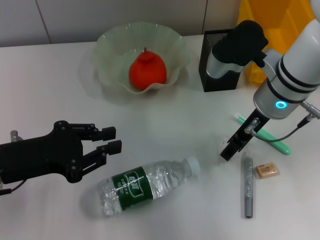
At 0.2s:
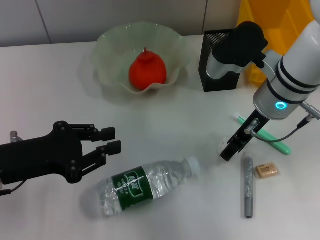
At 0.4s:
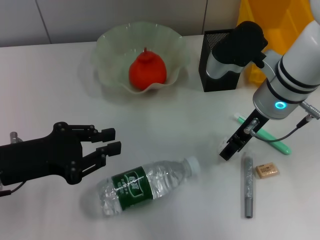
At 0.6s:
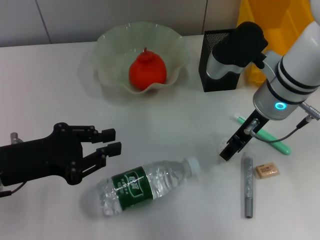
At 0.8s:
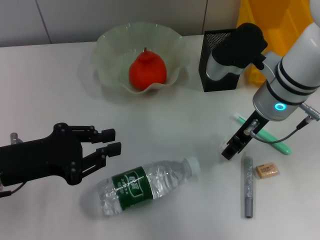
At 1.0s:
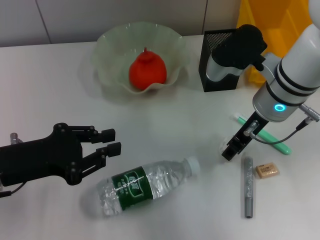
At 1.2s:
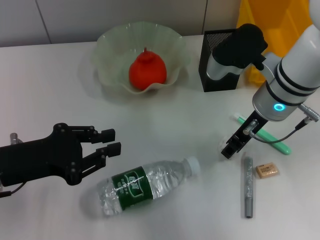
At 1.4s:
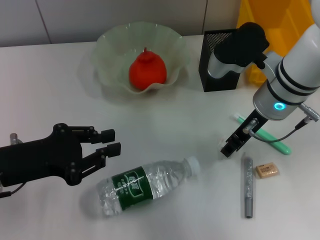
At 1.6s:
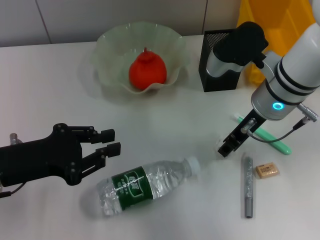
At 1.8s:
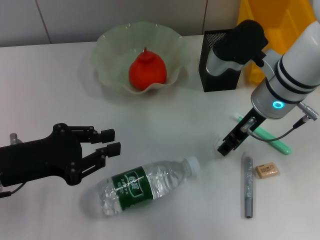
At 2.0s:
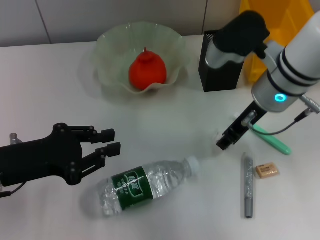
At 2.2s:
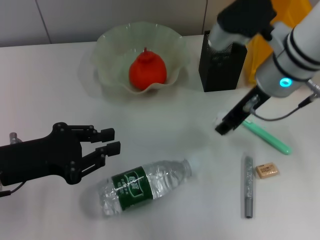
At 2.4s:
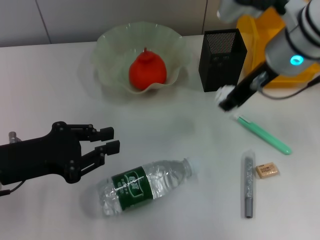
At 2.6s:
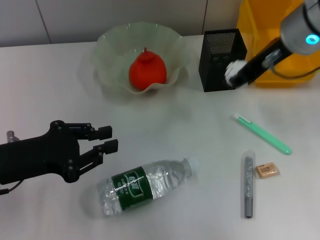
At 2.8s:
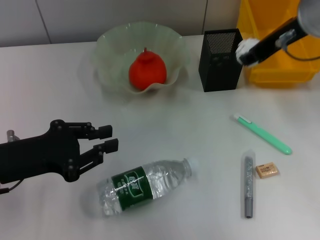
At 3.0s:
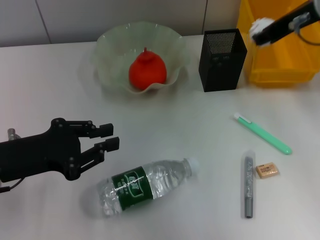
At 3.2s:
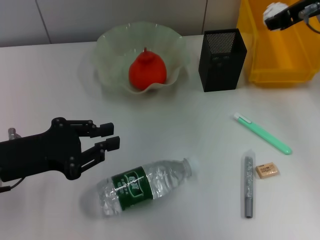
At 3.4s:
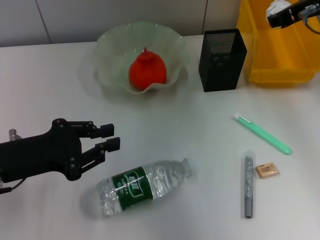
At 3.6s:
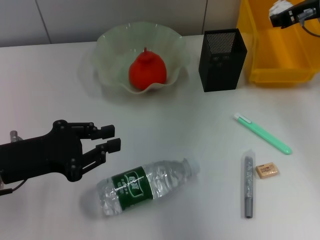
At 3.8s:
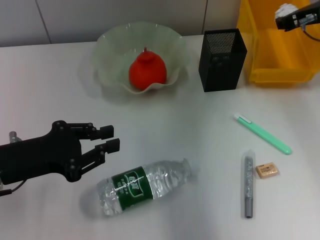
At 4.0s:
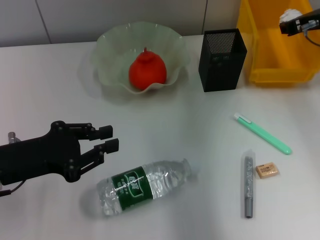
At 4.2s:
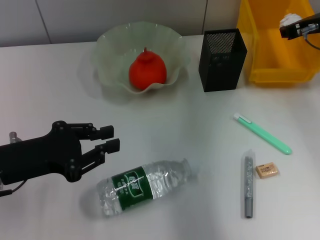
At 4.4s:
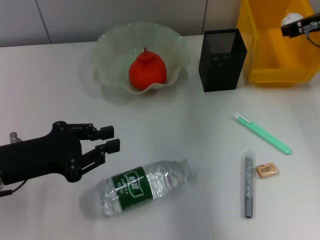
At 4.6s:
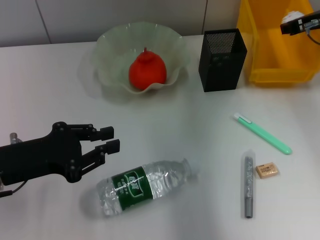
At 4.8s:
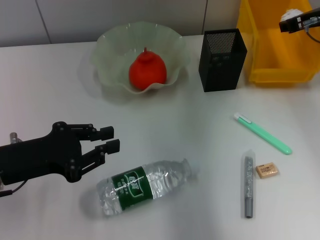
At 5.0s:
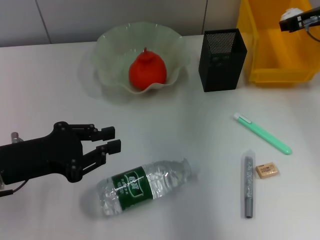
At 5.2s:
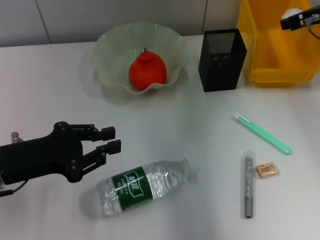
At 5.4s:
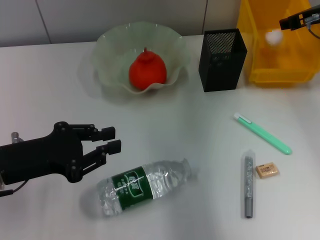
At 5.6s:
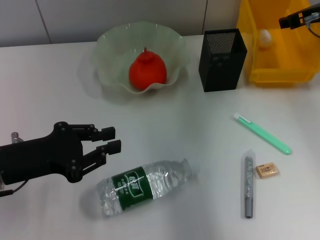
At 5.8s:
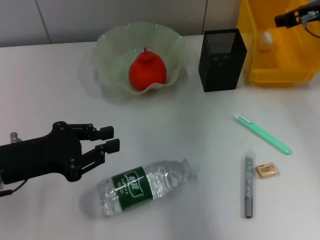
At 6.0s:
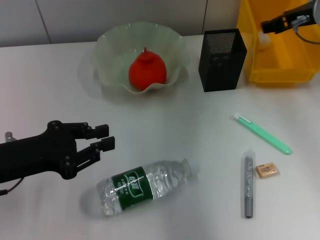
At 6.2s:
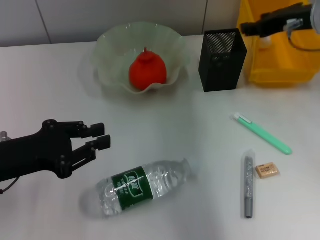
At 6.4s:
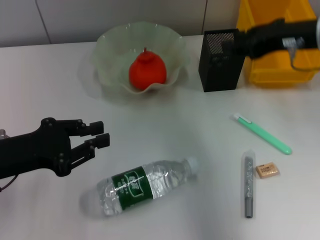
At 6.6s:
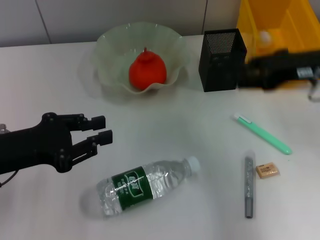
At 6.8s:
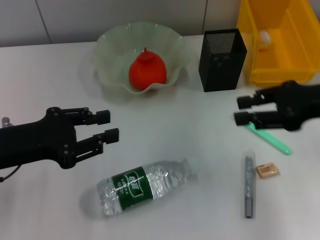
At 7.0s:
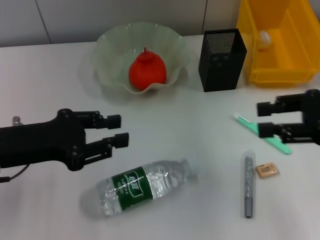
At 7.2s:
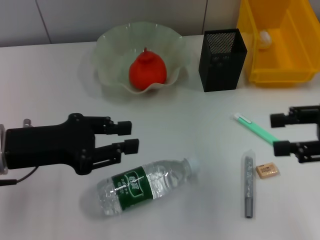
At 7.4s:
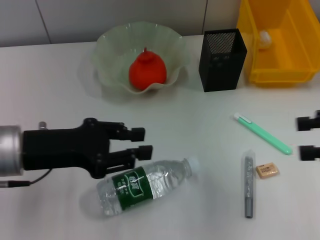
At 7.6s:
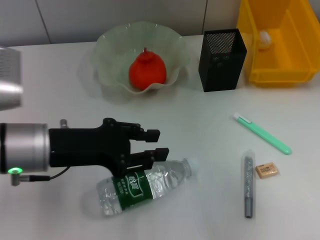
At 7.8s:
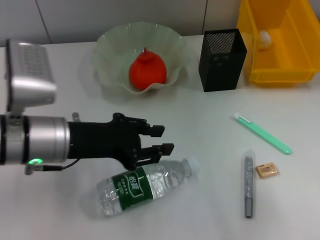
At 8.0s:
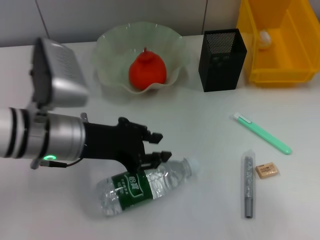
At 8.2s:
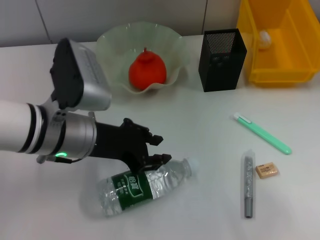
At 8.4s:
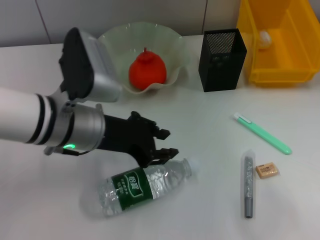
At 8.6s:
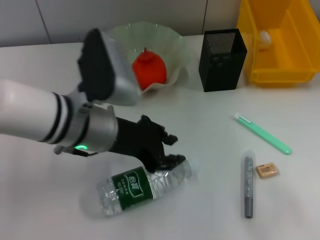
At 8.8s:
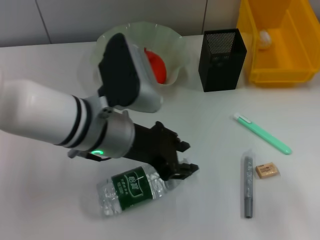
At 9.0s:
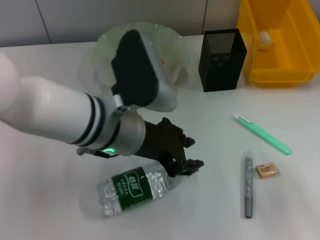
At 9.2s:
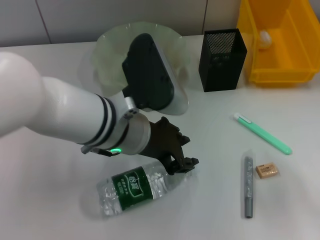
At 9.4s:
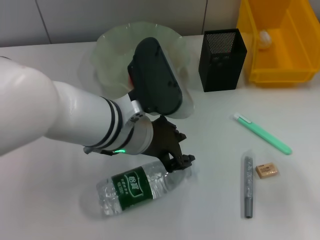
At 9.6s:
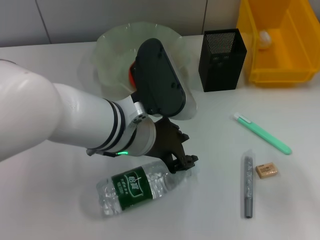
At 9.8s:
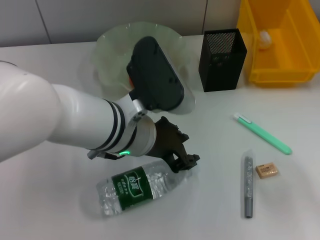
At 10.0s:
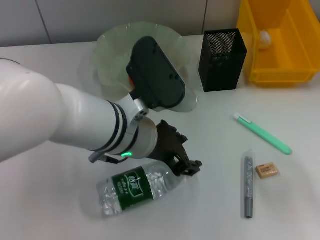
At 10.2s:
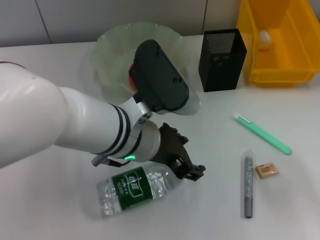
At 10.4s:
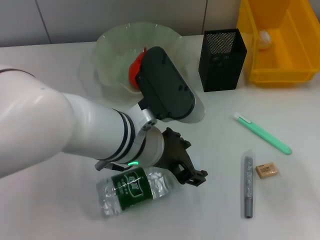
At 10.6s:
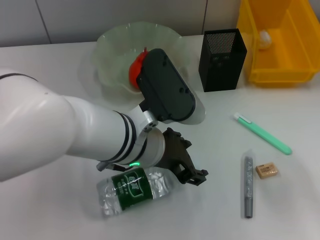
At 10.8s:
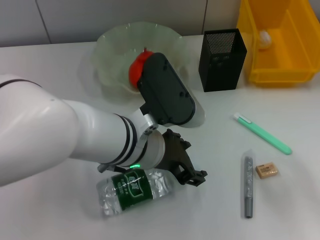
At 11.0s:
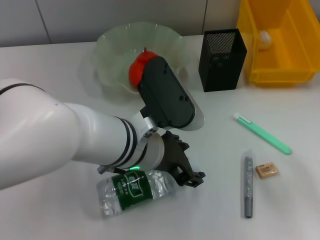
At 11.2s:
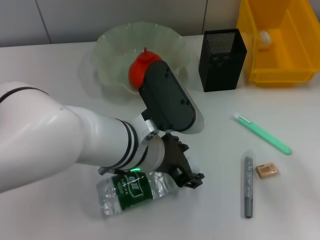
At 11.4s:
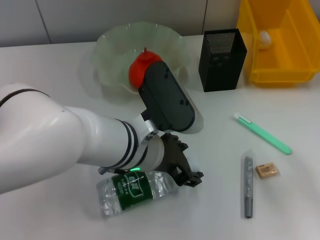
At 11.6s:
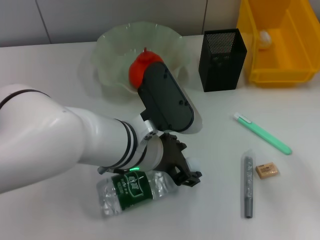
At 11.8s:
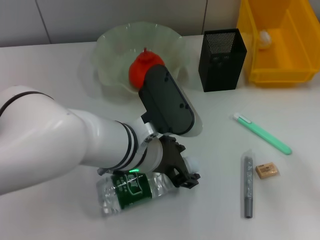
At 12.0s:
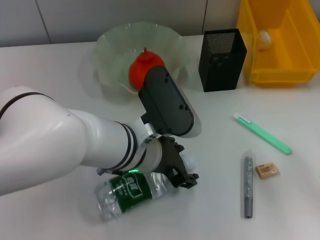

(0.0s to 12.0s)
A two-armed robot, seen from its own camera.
Step, 1.0s - 5.8s: Place the paper ball into the trash can with the right hand.
0.0s - 1.6s: Neither gripper changes place.
1.6s - 3.0s: The right gripper is displaced upward and to the right by some 15 cm.
3.0s - 4.4s: The right gripper travels downward, to the right and forward by approximately 10 cm.
4.4s - 6.0s: The grippers make only small movements.
6.0s - 7.6s: The left gripper moves to the right, about 5 cm, while the right gripper moves backward and to the right, roughly 25 cm.
7.6s - 9.0s: The left gripper heads to the right, covering approximately 10 cm.
9.0s - 12.0s: The grippers make only small movements.

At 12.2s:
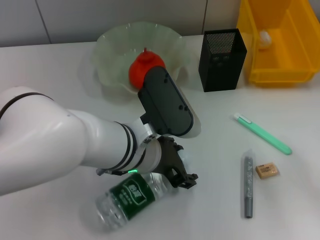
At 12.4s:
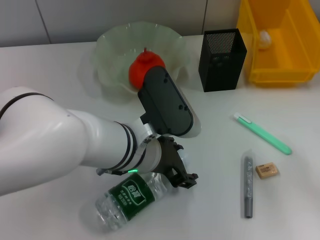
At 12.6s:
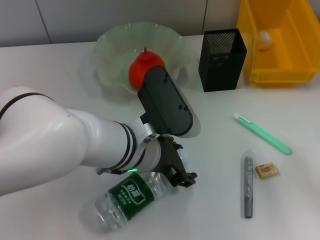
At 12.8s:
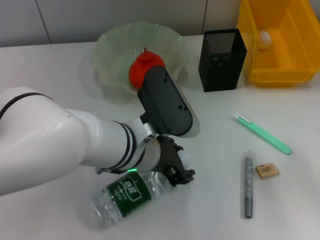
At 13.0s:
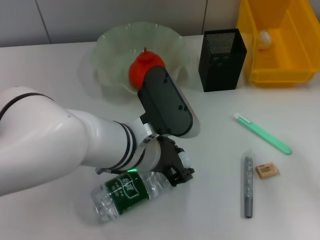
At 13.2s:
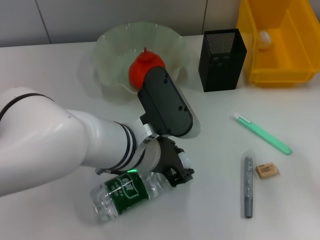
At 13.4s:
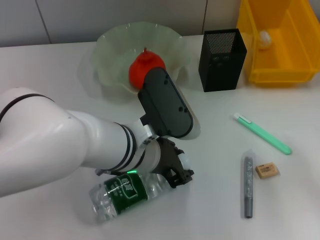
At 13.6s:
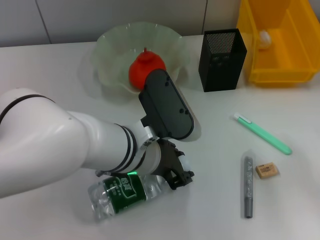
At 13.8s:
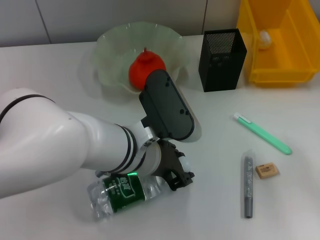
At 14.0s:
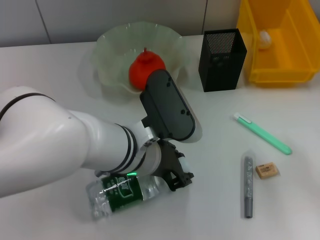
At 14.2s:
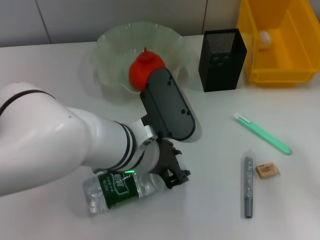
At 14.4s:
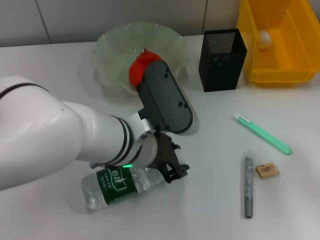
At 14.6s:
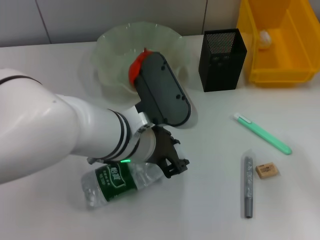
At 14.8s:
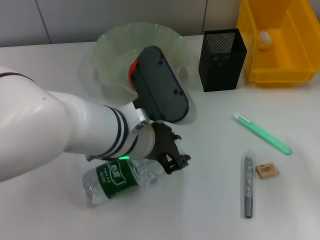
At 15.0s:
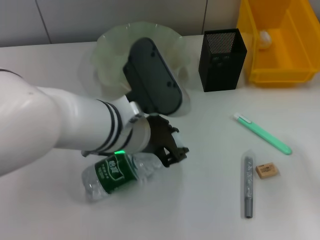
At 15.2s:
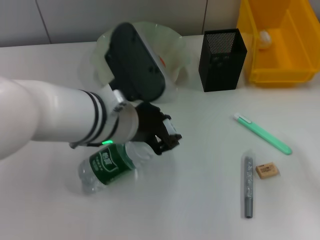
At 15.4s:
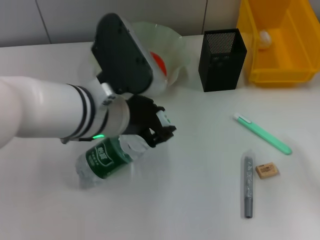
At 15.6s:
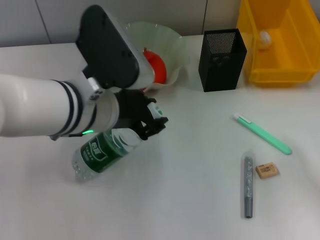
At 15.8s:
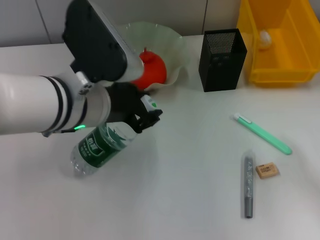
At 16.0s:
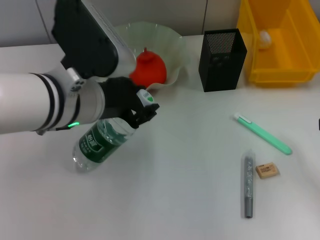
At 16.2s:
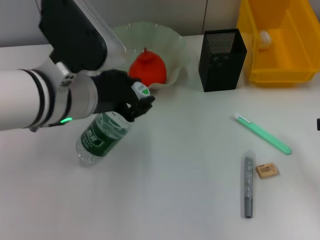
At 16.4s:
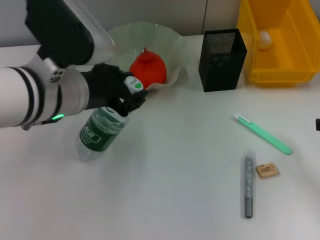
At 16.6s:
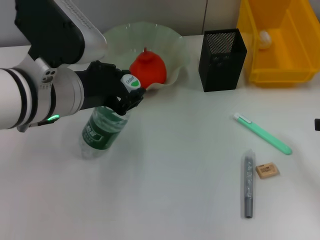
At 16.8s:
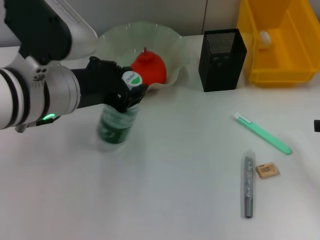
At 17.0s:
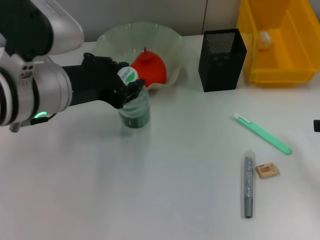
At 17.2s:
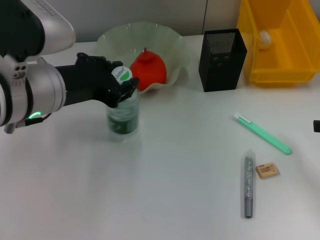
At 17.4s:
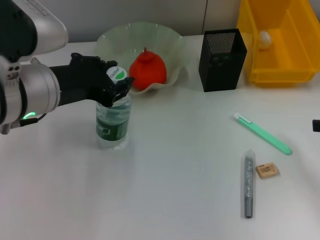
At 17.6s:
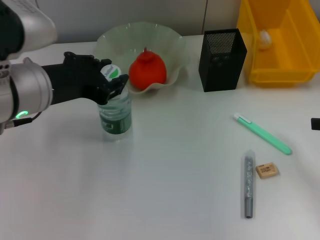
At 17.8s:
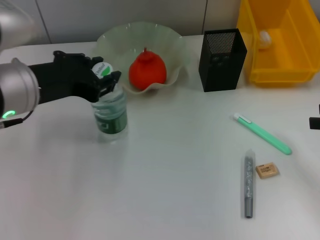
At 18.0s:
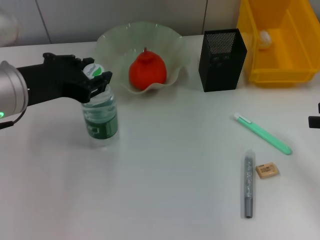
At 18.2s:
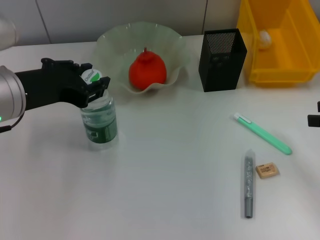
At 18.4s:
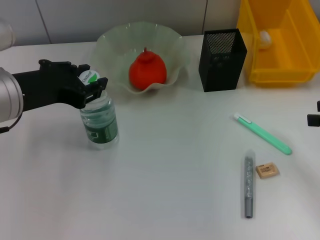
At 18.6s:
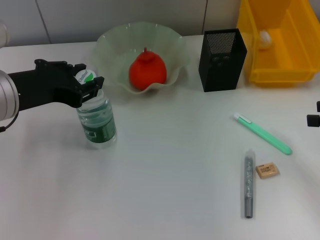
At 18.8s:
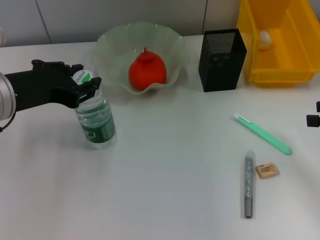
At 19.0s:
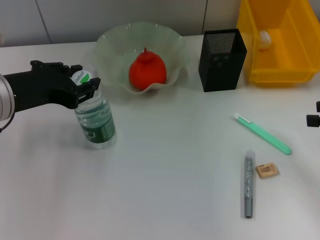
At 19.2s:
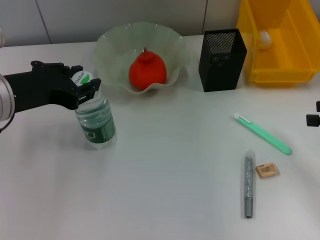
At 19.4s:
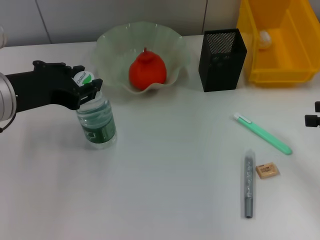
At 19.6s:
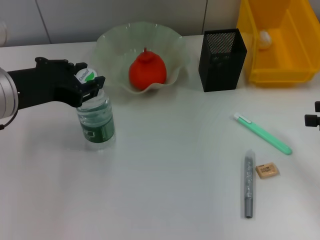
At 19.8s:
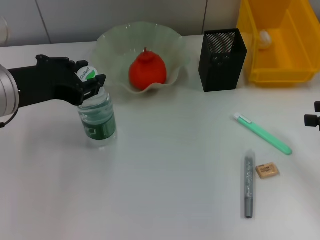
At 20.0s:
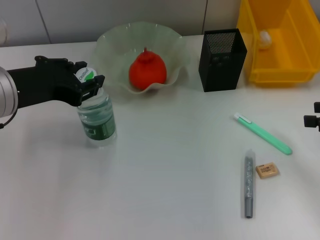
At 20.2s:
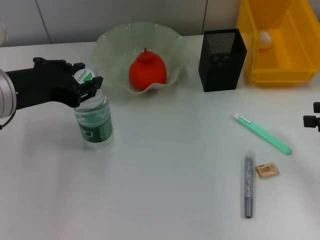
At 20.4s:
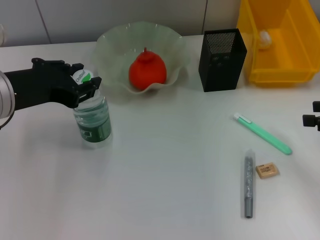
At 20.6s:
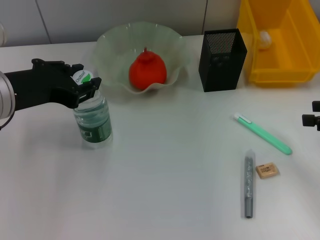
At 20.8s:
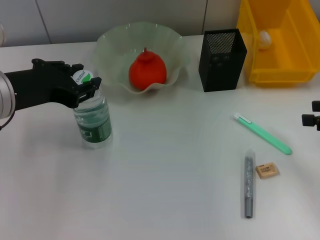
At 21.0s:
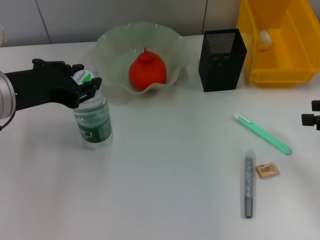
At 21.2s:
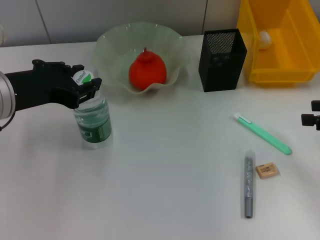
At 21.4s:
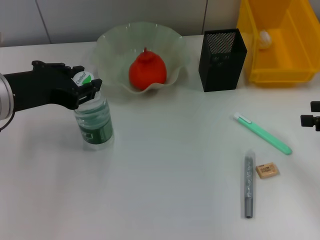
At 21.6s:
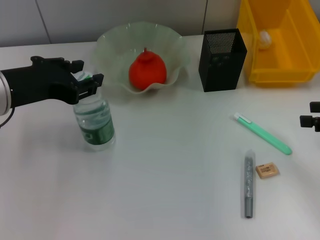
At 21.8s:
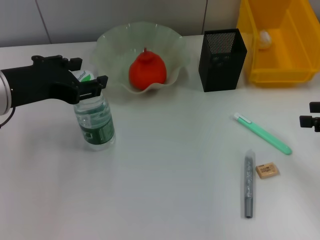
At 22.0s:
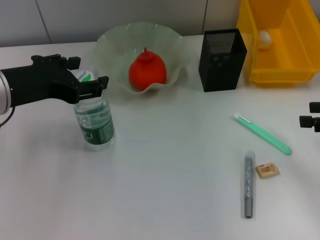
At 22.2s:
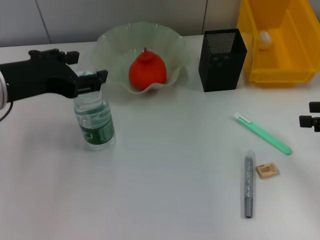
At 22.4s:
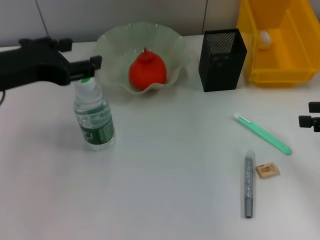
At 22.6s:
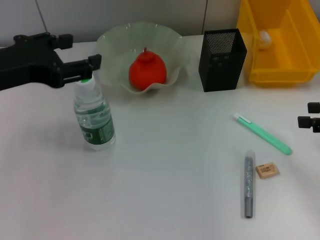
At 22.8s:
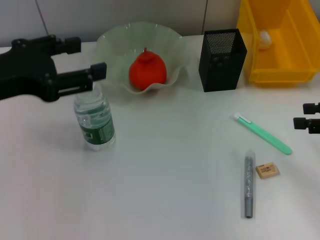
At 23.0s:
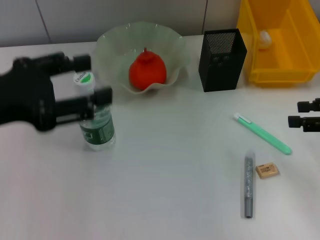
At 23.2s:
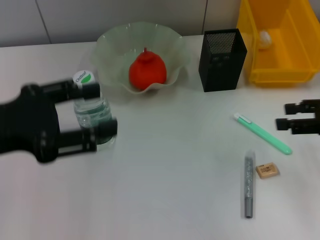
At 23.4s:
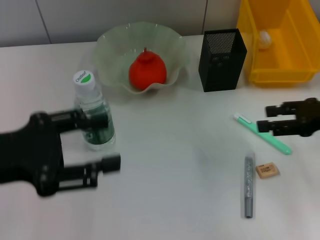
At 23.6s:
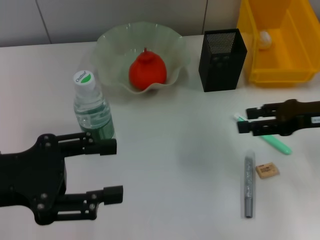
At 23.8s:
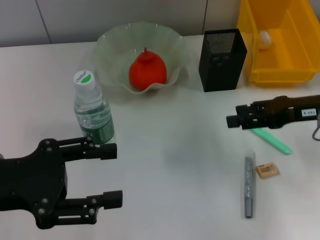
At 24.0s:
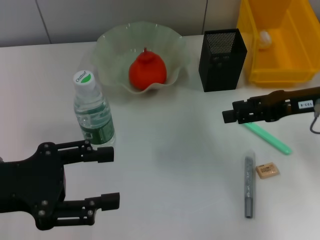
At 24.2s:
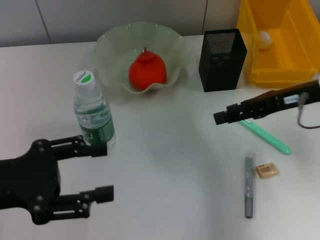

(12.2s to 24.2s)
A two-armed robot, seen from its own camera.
Step, 13.4s - 21.8s: Place the water bottle on the table with the left hand.
12.2s - 13.8s: The left gripper closes its fingers.
13.8s - 15.2s: The left gripper changes place by approximately 5 cm.
15.2s - 16.6s: The left gripper shifts roughly 5 cm to the left.
16.6s - 18.2s: The left gripper moves to the left, roughly 5 cm.
18.2s - 21.2s: The two grippers keep their place.
21.2s - 22.6s: The grippers make only small movements.
22.6s - 24.2s: The left gripper travels downward and backward by about 10 cm, while the right gripper is displaced to the left and forward by roughly 15 cm.
